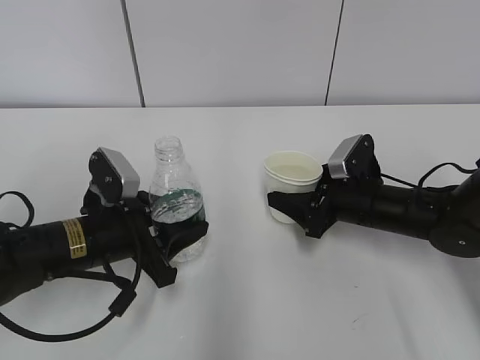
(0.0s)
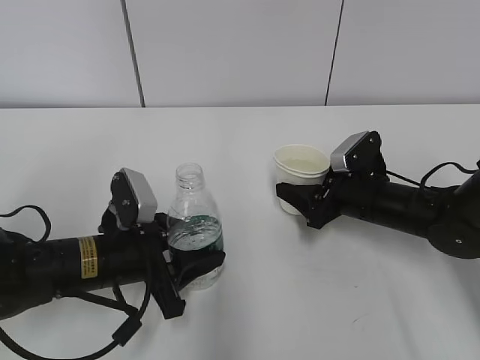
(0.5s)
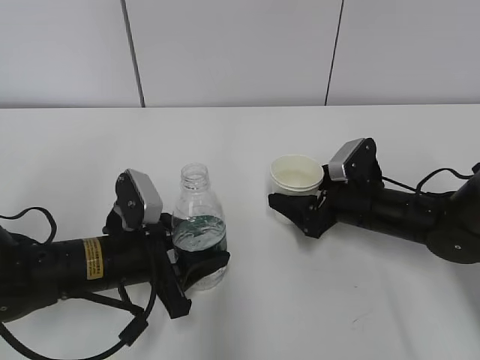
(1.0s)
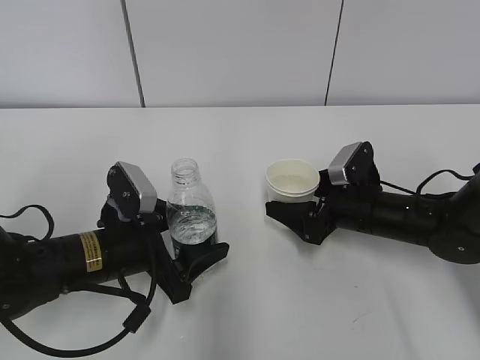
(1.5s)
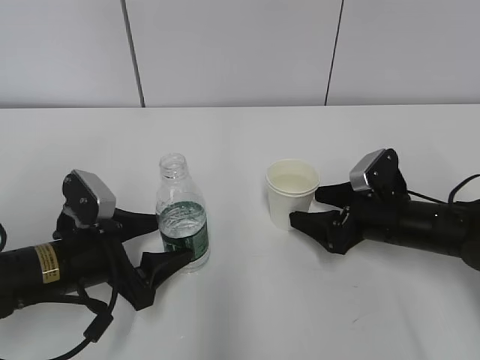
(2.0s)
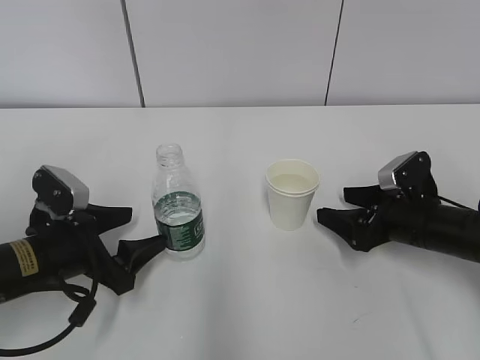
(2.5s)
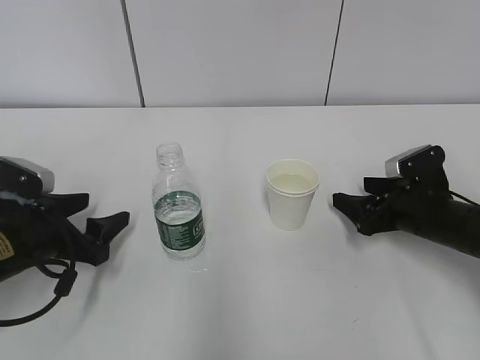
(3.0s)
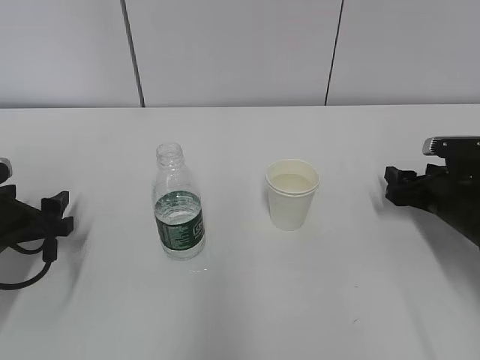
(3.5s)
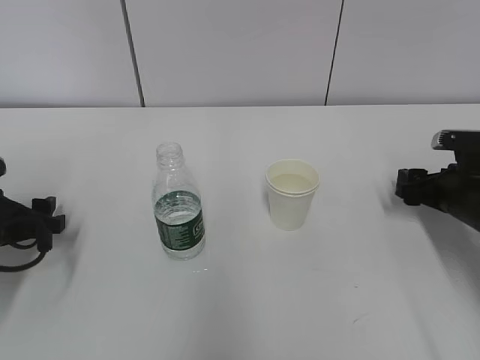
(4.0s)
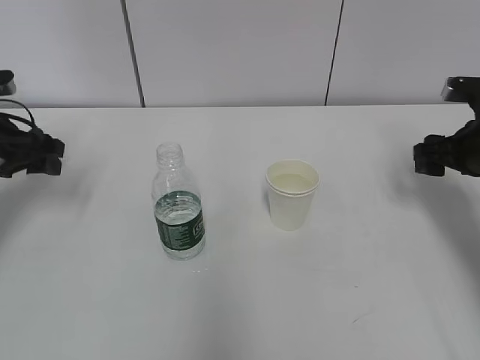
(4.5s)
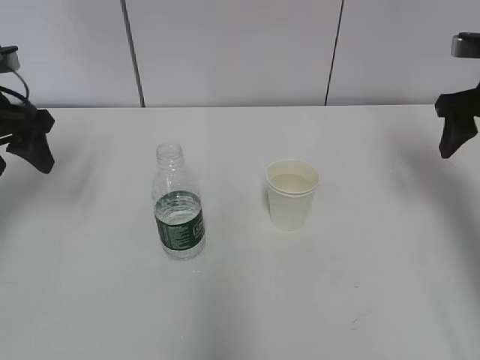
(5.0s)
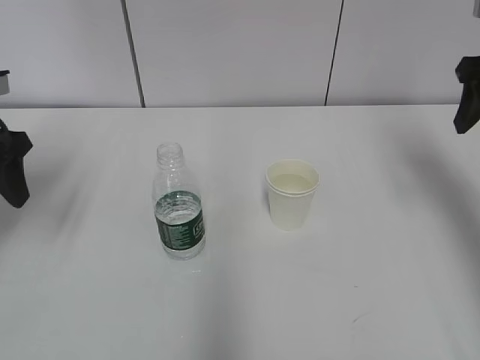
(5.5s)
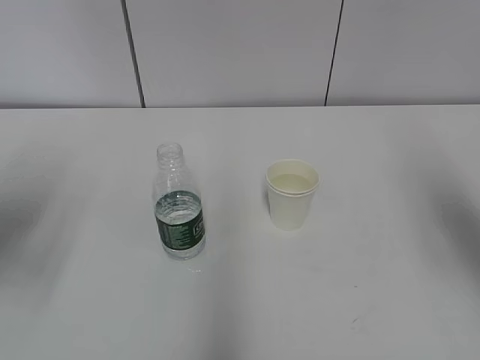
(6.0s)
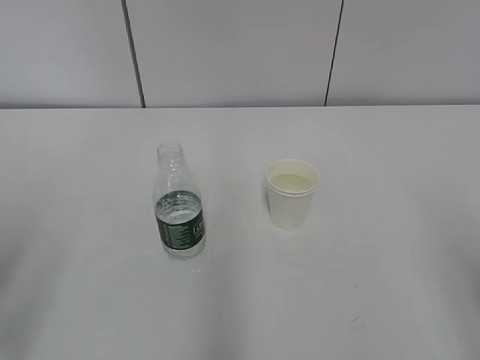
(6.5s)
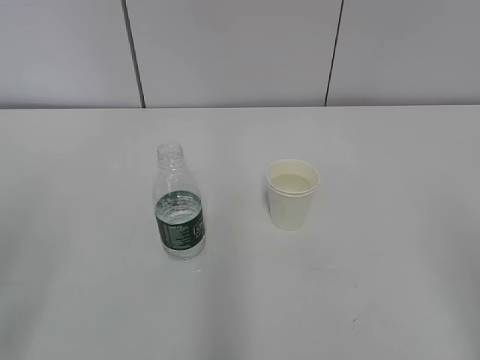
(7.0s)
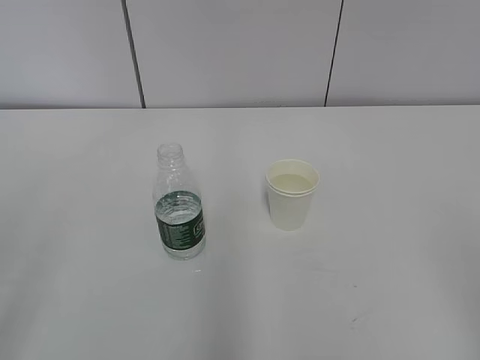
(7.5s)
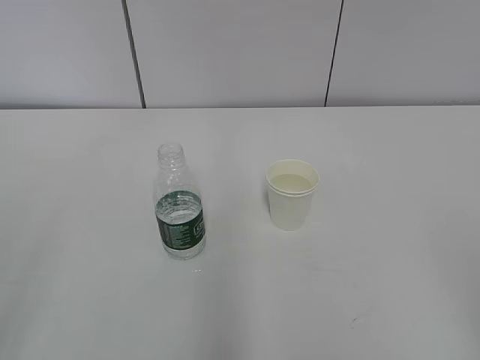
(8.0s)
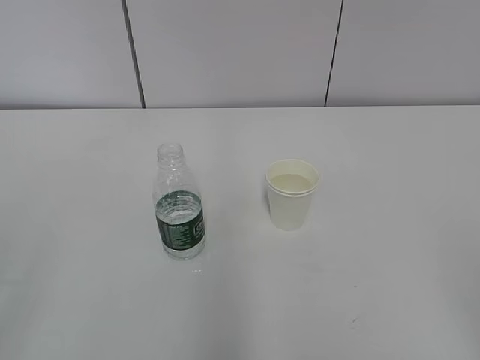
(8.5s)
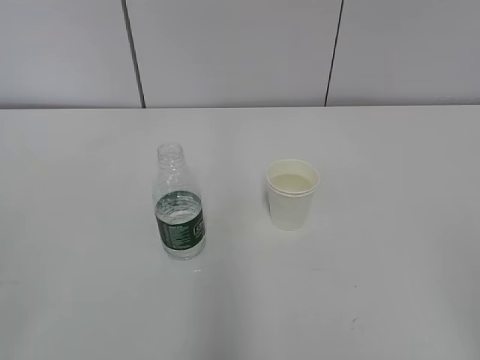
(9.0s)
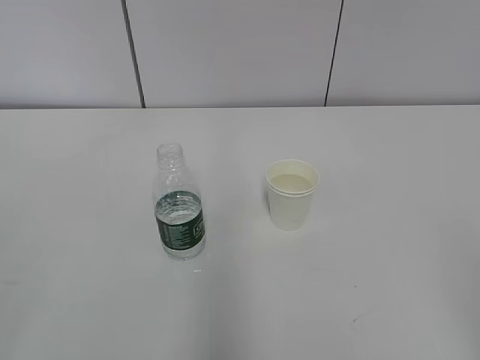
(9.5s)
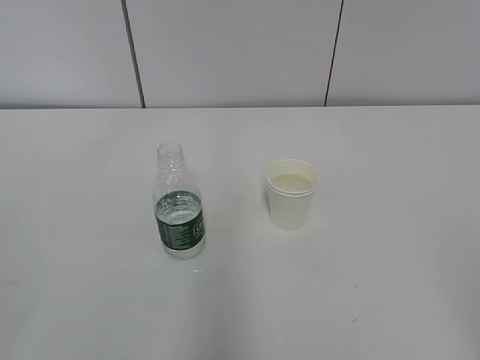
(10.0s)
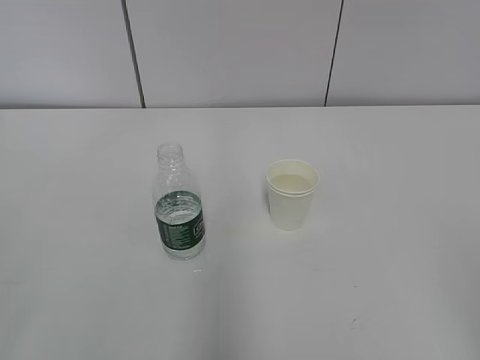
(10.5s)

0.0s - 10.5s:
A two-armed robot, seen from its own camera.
0.0s - 2.0s: The right gripper opens; the left gripper opens.
2.0s - 4.0s: The right gripper travels to the right by some 10 cm, and closes its fingers, while the left gripper moves to the left, some 10 cm.
4.0s - 6.5s: The grippers both shift backward and upward by about 25 cm.
